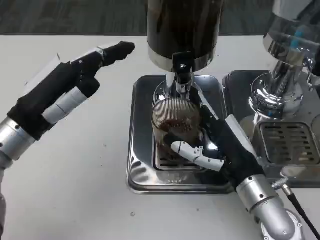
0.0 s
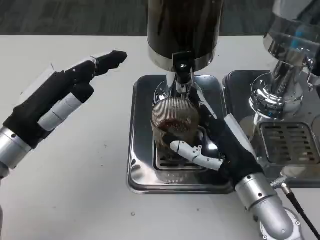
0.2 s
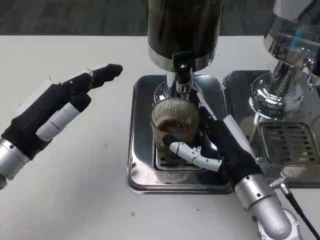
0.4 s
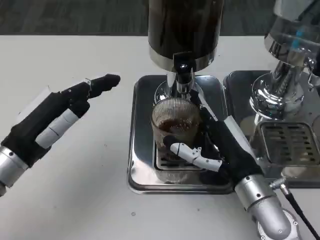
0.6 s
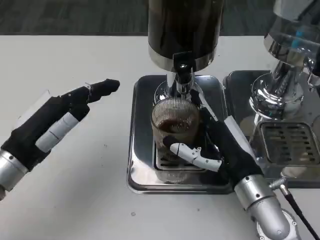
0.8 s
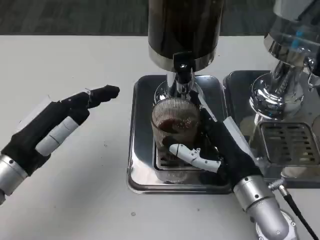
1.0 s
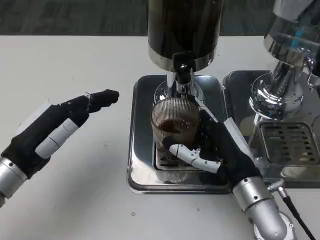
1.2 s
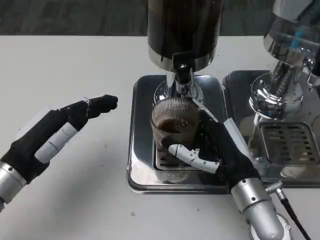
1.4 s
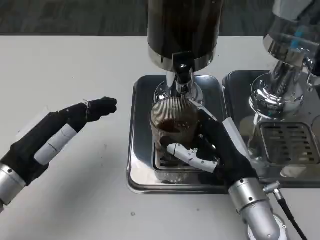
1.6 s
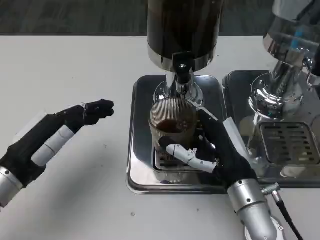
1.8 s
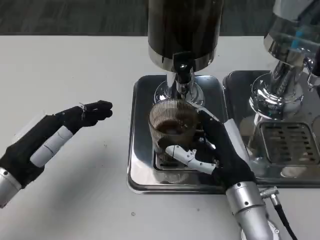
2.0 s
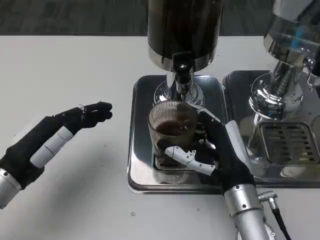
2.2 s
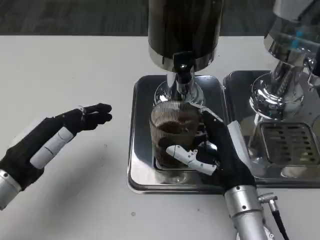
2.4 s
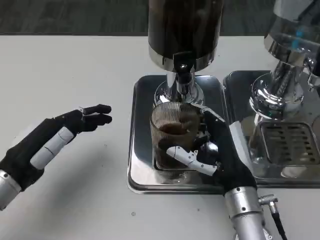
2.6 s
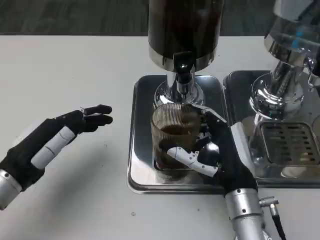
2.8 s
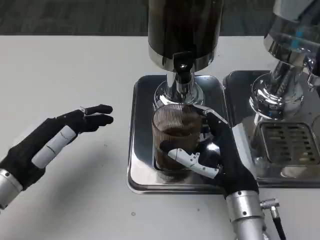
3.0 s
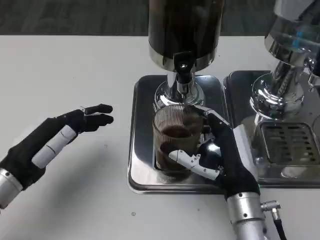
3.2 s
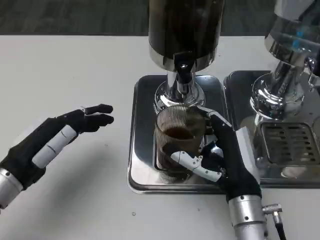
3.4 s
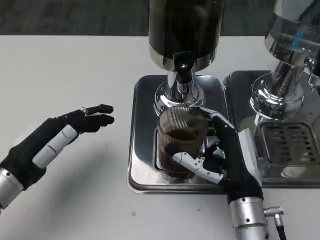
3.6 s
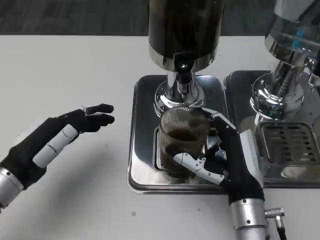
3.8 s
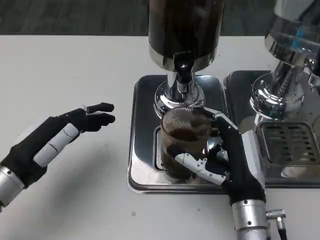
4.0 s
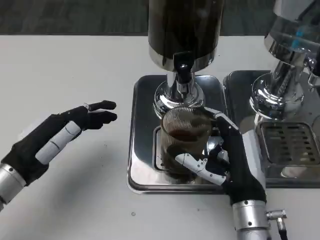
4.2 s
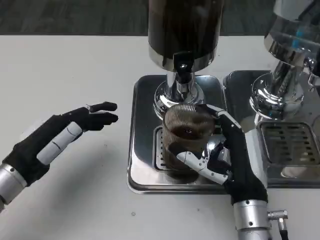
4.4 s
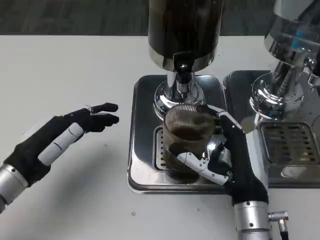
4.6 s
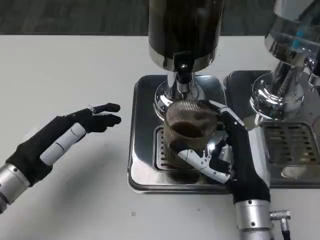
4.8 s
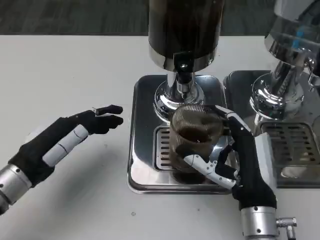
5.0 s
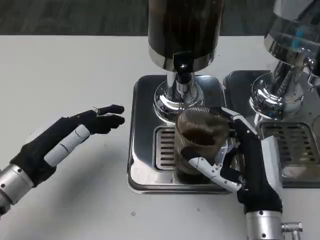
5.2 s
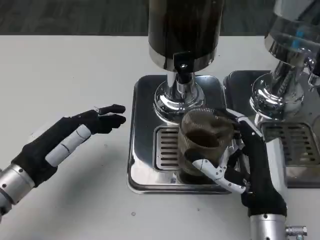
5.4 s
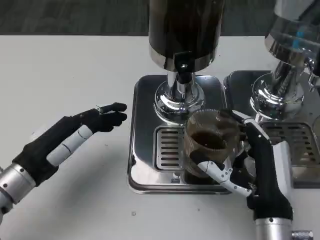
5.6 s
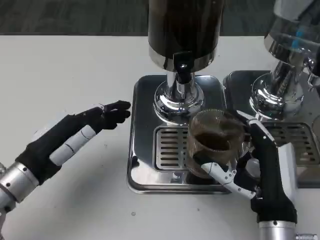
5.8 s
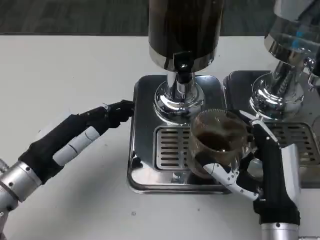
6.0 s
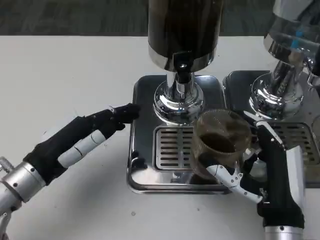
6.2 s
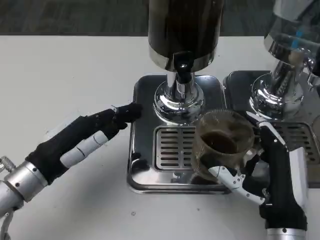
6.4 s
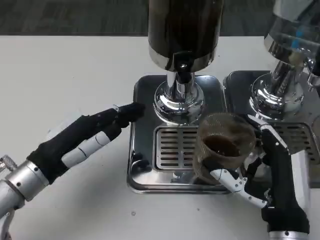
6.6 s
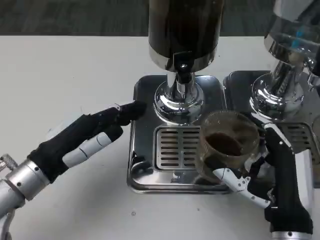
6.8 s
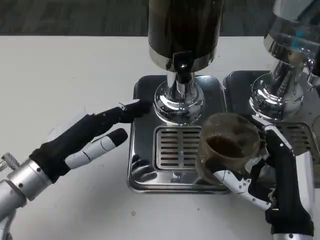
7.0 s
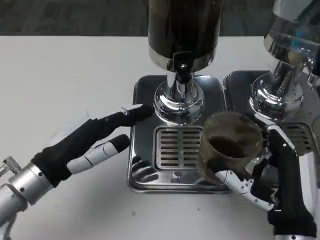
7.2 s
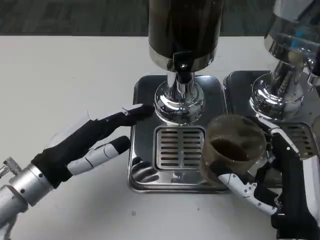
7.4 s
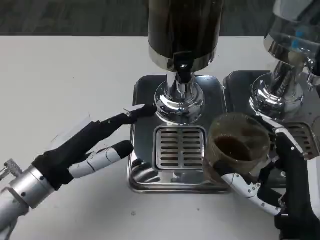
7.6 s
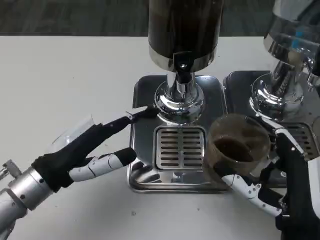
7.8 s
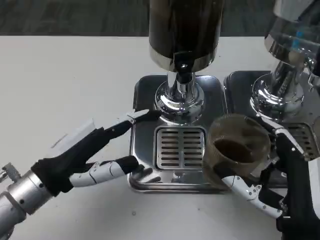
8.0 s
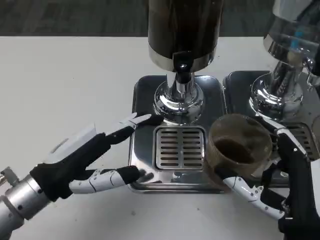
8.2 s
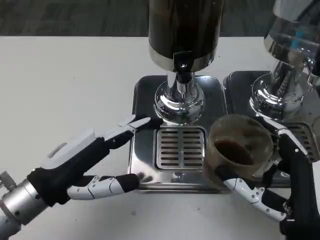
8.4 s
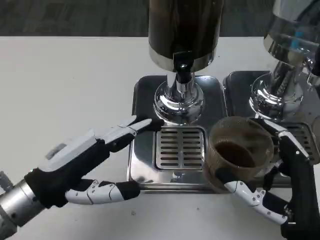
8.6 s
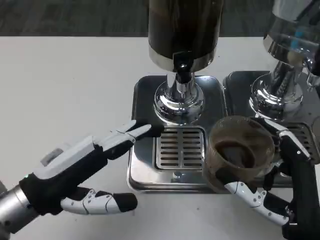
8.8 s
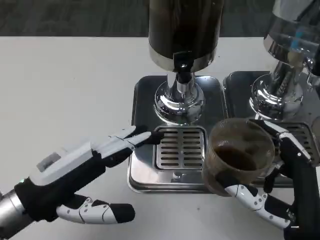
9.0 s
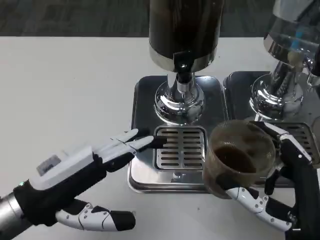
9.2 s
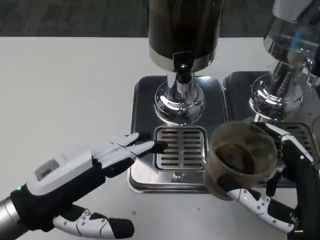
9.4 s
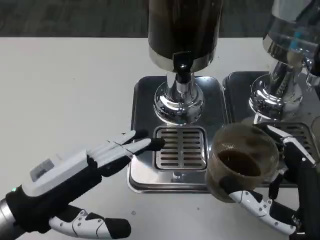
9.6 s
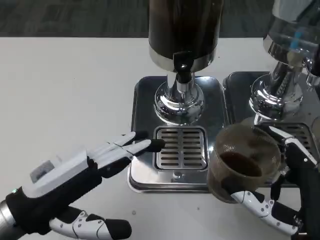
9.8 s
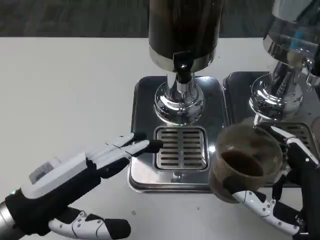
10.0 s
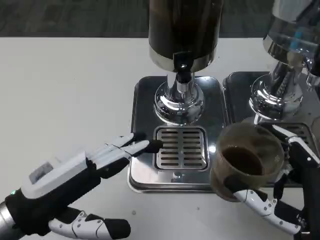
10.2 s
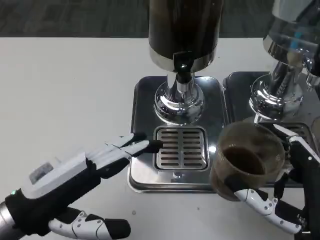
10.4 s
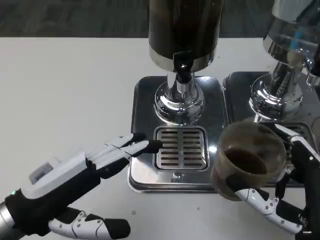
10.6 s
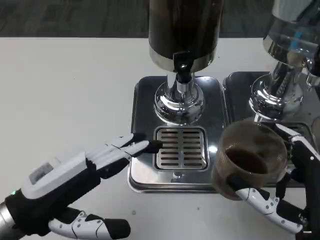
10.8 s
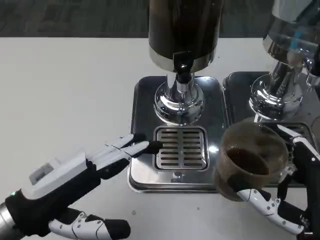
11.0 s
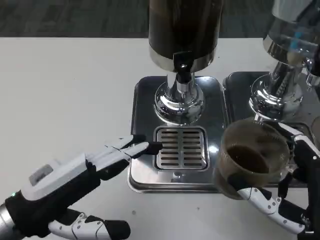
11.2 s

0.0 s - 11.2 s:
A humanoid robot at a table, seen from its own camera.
Task of the whole recording: Grasp the cup under the faucet to collect the drink, then remove the cup.
0.0 s - 1.6 s: The left hand moves about 5 cm.
1.6 s - 3.2 s: The hands move only a little.
3.2 s - 4.8 s: The hands make only small movements.
4.8 s - 6.4 s: The right hand ends up roughly 5 cm from where it was.
8.0 s - 9.6 s: The left hand shifts by roughly 5 cm.
9.6 s - 11.2 s: Both hands stay put.

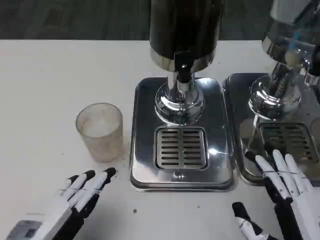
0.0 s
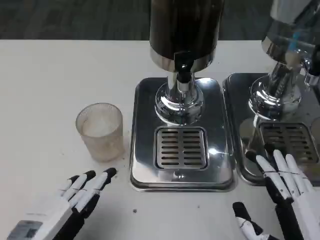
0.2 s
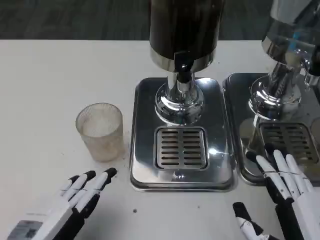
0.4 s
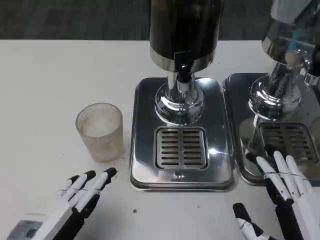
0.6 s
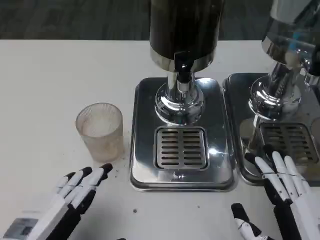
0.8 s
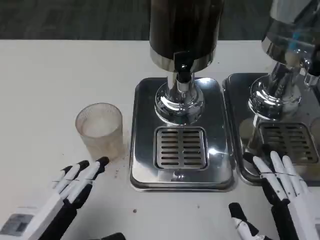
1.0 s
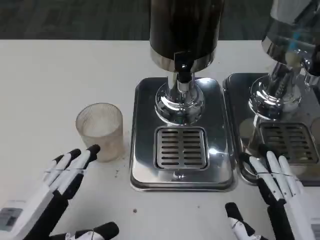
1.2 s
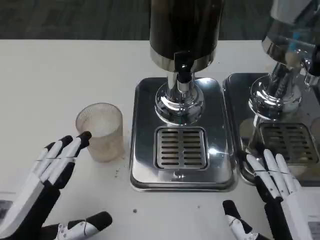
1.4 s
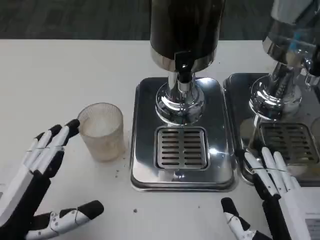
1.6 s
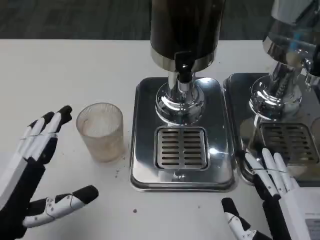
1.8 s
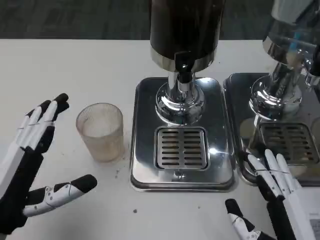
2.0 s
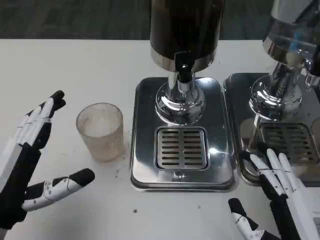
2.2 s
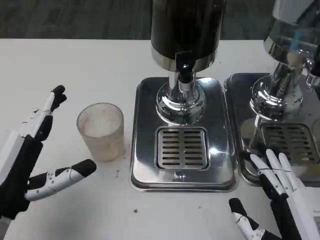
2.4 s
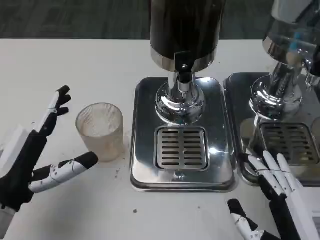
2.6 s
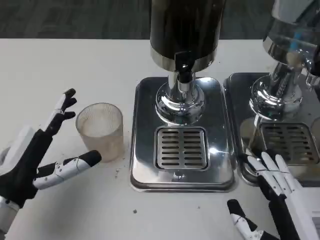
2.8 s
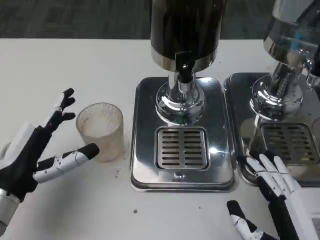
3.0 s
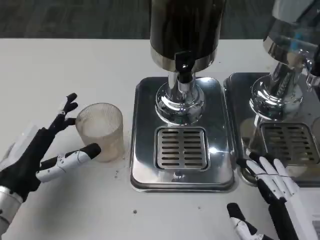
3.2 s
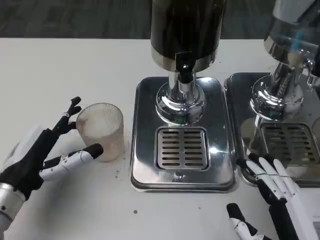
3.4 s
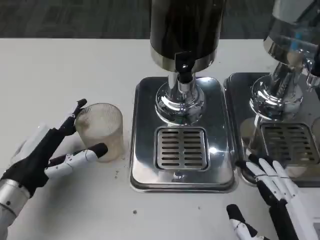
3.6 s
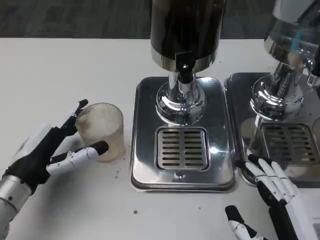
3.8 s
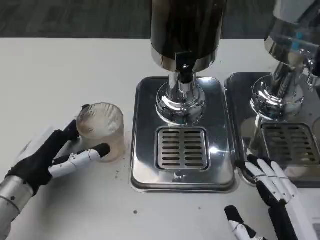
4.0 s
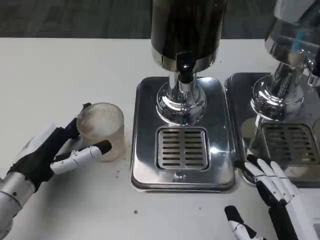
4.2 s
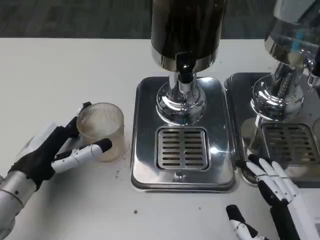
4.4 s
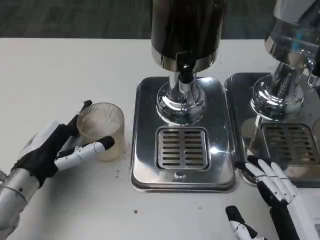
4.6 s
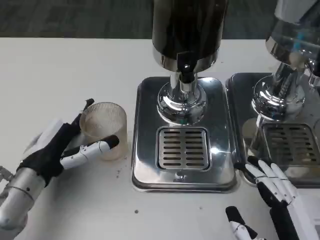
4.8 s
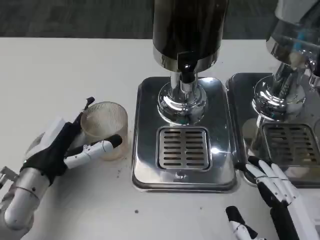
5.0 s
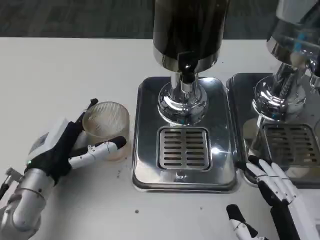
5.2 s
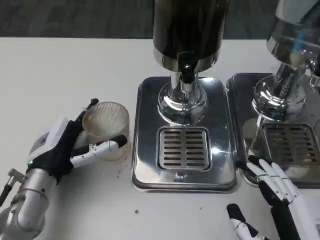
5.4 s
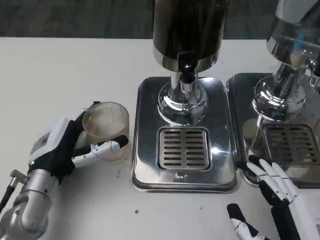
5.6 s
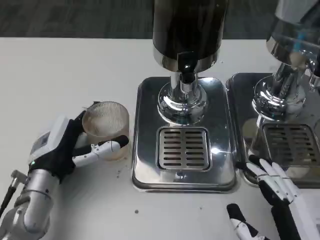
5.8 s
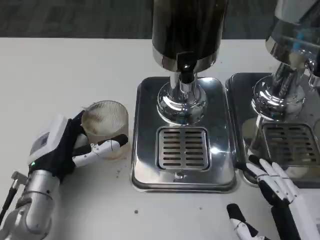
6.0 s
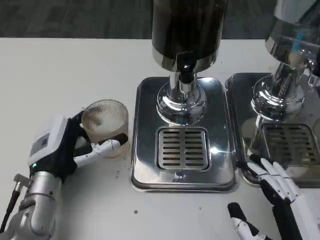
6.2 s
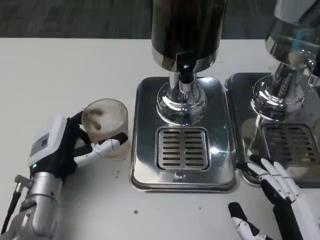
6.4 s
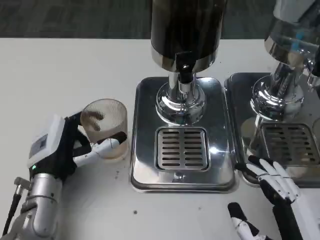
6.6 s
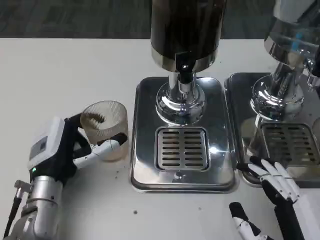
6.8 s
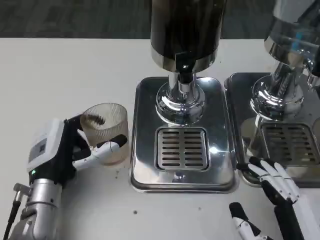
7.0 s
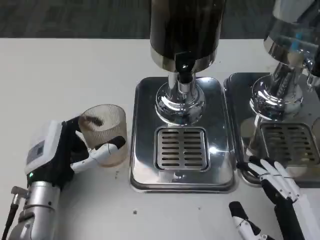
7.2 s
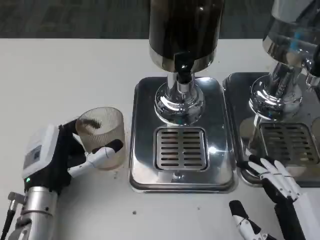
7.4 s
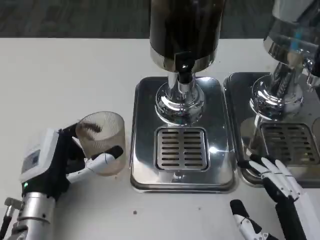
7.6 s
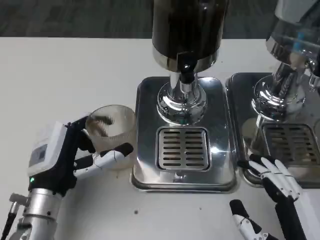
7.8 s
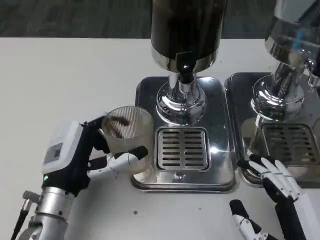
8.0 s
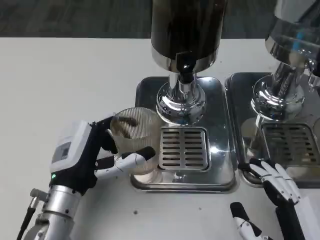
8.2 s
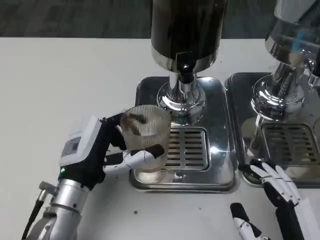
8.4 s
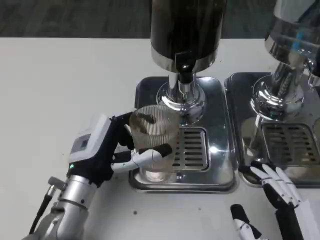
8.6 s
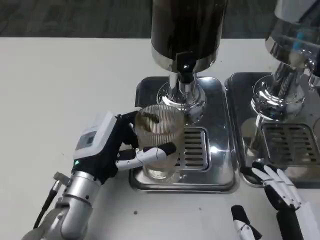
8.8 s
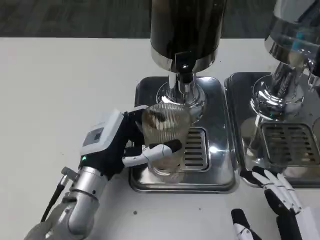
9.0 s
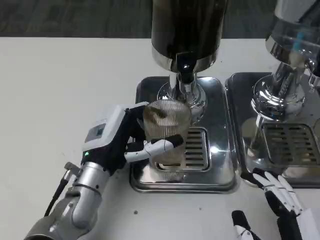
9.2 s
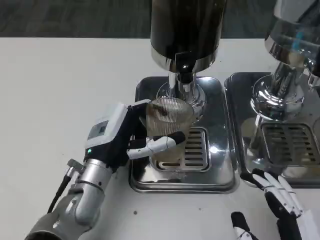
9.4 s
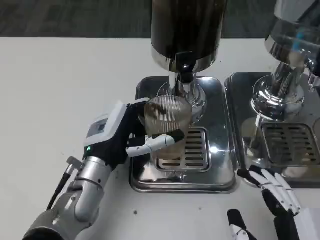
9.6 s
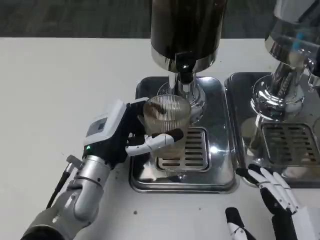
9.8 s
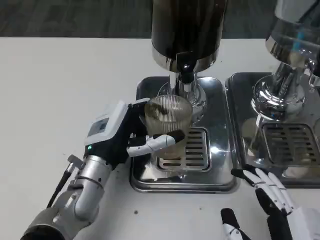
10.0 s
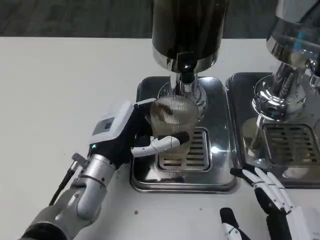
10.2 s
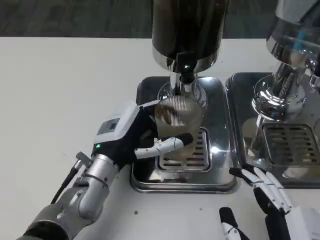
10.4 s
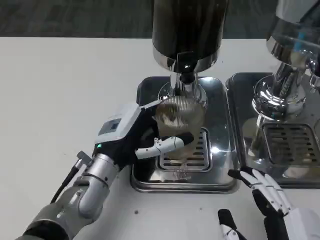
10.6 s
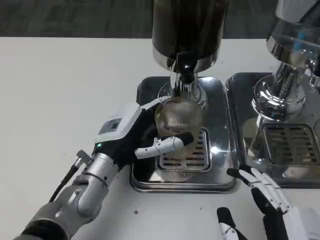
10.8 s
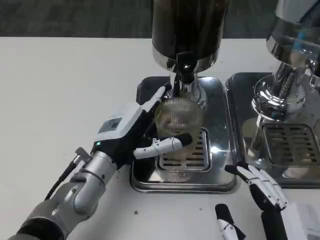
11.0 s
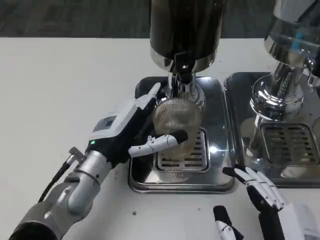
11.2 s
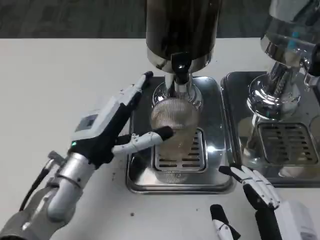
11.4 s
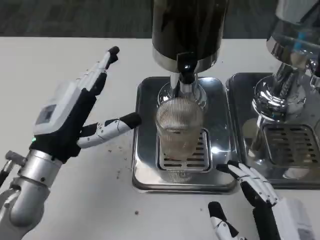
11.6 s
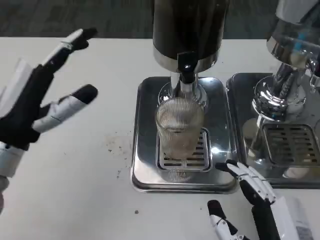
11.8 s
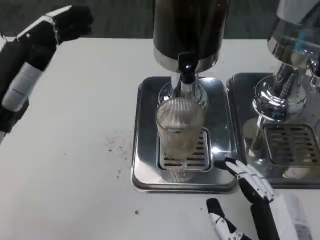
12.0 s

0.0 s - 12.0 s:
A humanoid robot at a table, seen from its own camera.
Task of the whole recording: Grasp the cup under the faucet to collect the drink, then remove the cup.
0.0 s - 1.6 s: There are only small adjustments of the hands.
1.6 s - 3.0 s: The left hand shifts some 10 cm forward.
3.0 s - 4.4 s: There are only small adjustments of the hands.
4.4 s - 6.0 s: The left hand ends up roughly 5 cm from where it was.
6.0 s - 7.6 s: The hands make only small movements.
7.6 s - 9.0 s: The left hand heads to the right, covering some 5 cm.
9.0 s - 10.4 s: The hands stay close to where they were, moving slightly.
10.4 s - 12.0 s: The left hand moves to the left and upward, roughly 15 cm.
